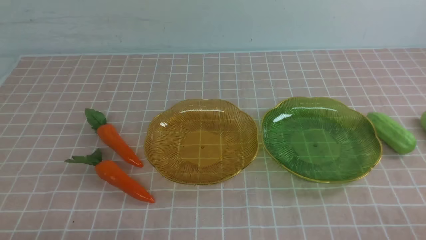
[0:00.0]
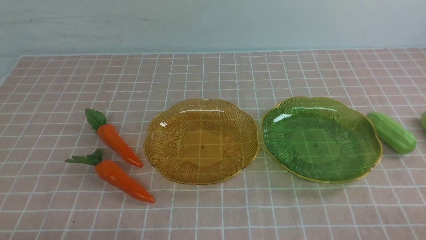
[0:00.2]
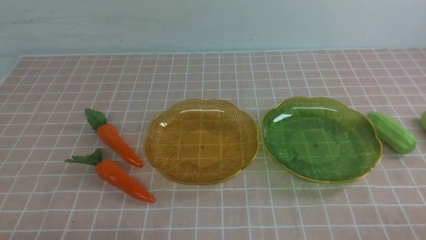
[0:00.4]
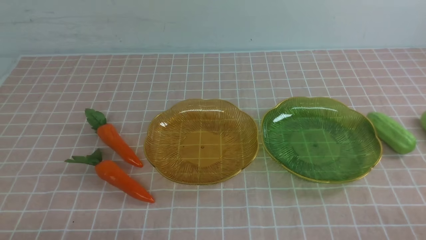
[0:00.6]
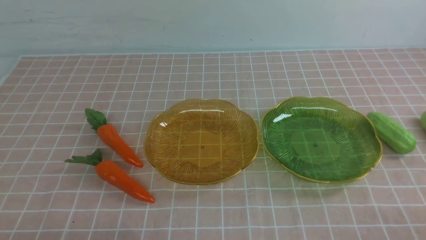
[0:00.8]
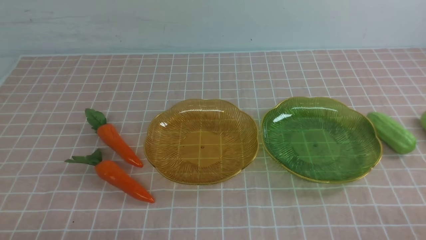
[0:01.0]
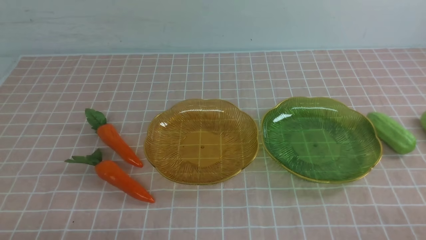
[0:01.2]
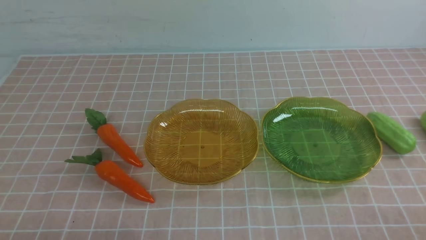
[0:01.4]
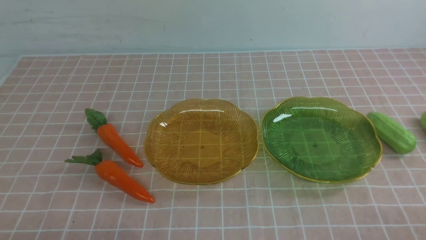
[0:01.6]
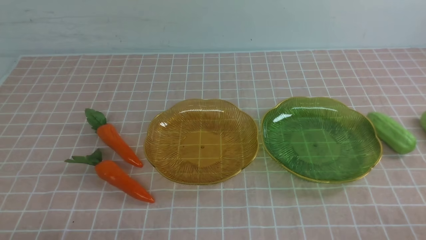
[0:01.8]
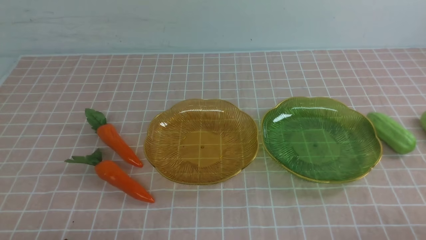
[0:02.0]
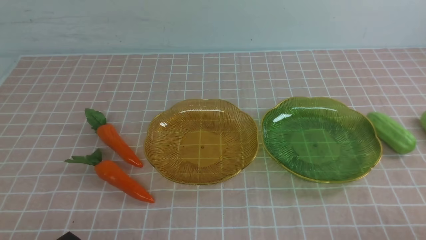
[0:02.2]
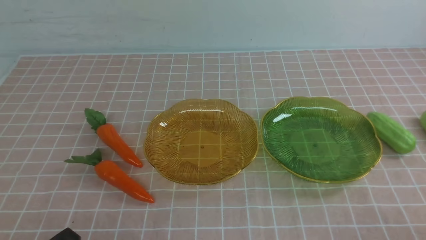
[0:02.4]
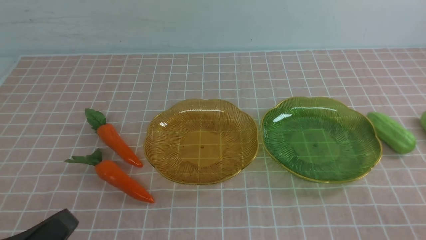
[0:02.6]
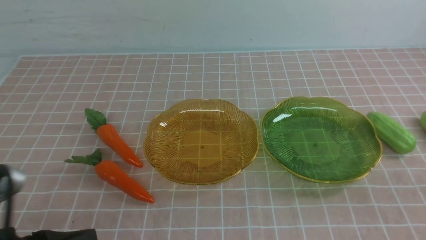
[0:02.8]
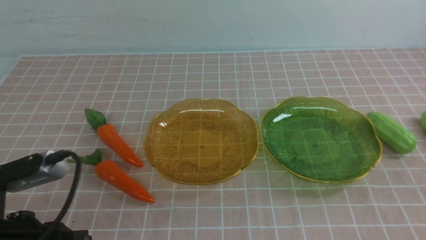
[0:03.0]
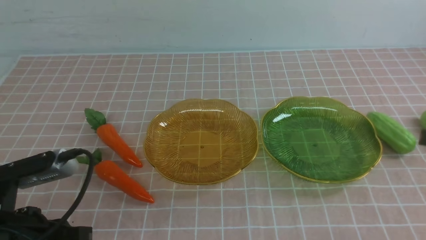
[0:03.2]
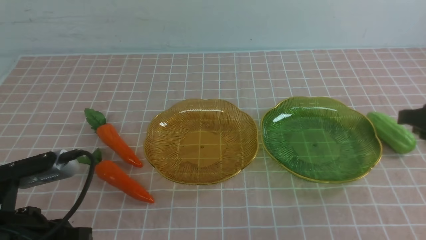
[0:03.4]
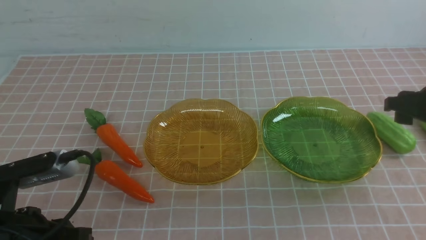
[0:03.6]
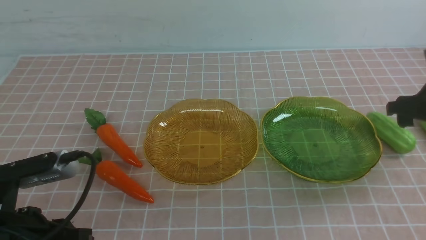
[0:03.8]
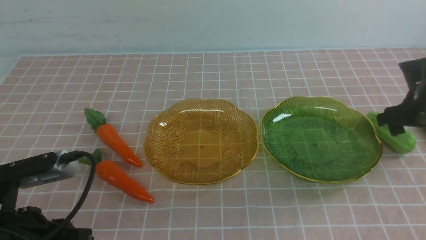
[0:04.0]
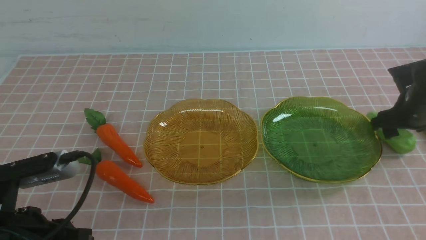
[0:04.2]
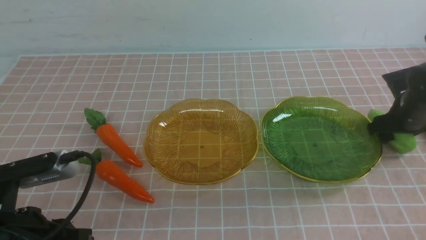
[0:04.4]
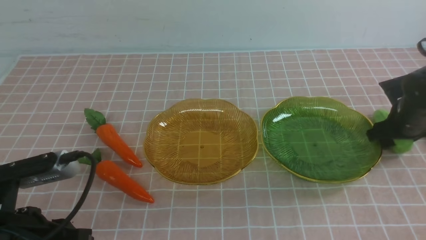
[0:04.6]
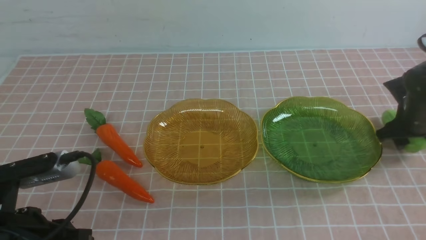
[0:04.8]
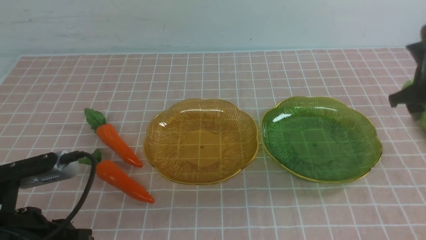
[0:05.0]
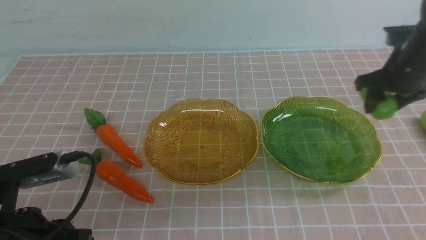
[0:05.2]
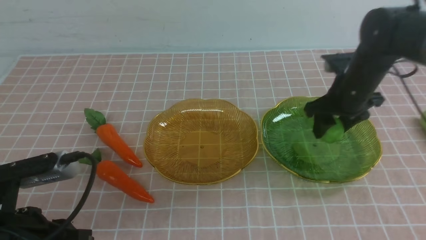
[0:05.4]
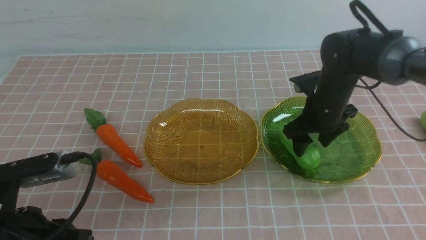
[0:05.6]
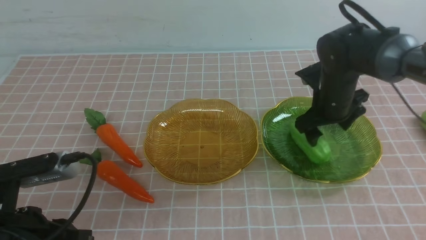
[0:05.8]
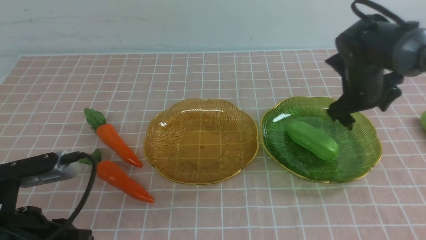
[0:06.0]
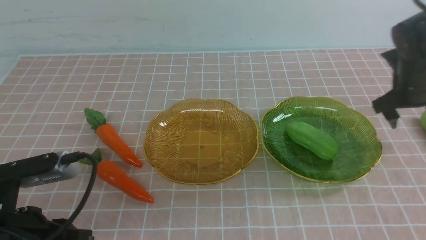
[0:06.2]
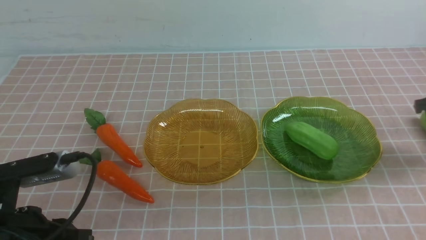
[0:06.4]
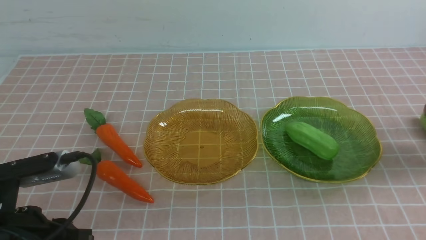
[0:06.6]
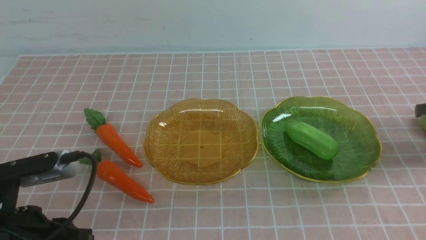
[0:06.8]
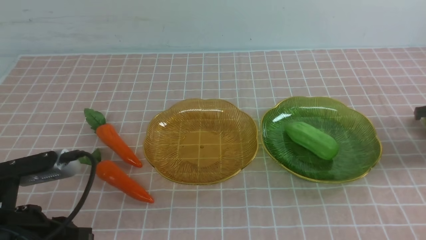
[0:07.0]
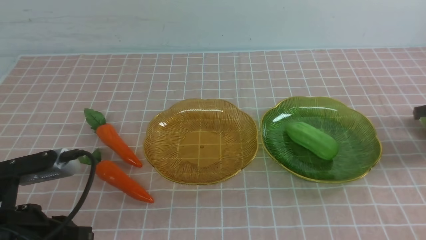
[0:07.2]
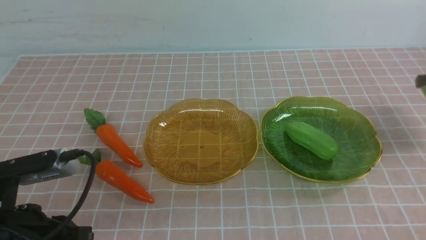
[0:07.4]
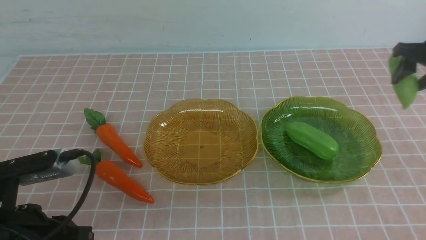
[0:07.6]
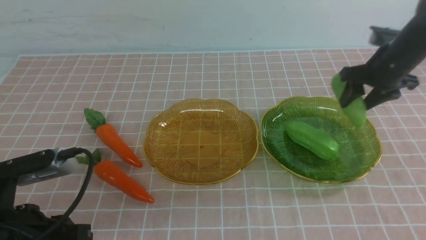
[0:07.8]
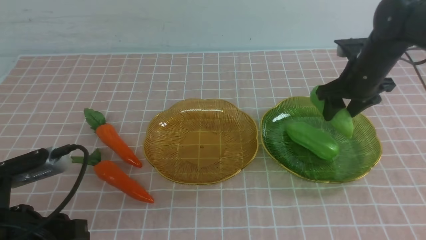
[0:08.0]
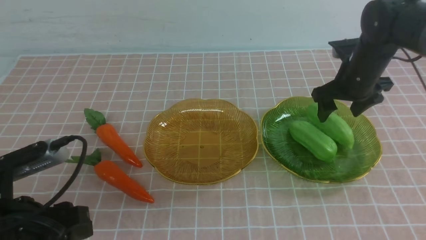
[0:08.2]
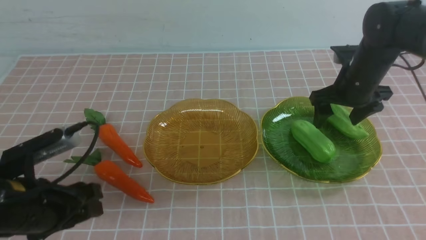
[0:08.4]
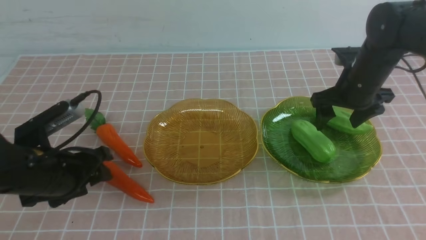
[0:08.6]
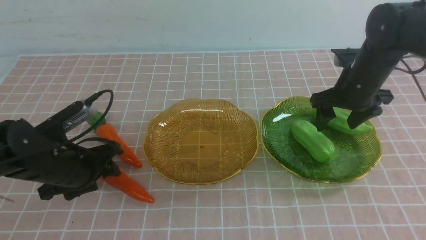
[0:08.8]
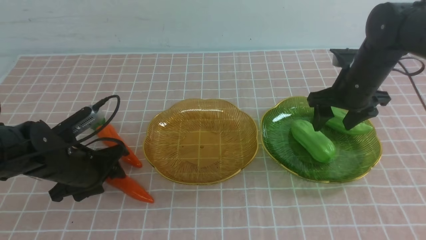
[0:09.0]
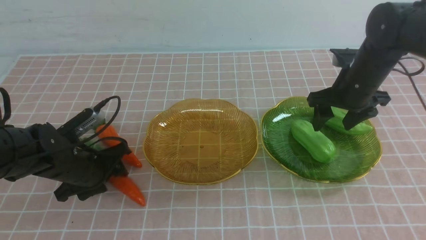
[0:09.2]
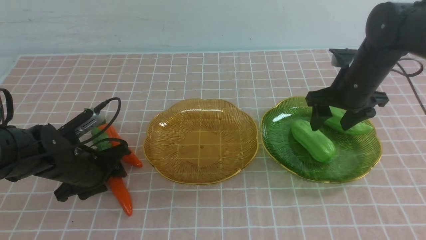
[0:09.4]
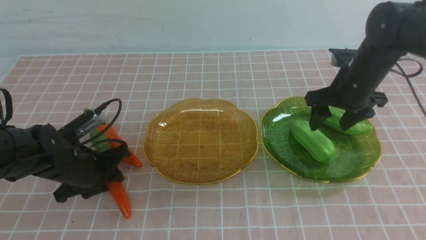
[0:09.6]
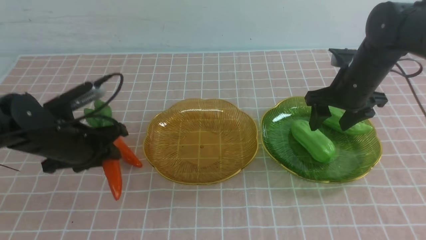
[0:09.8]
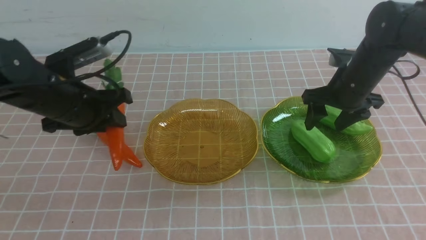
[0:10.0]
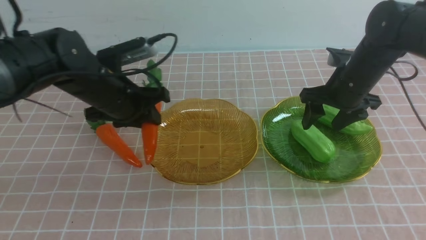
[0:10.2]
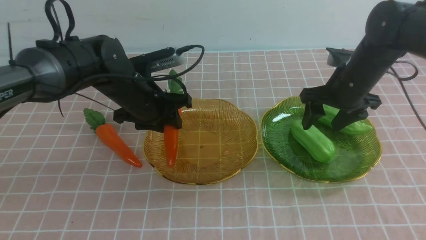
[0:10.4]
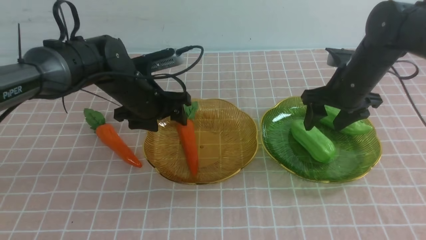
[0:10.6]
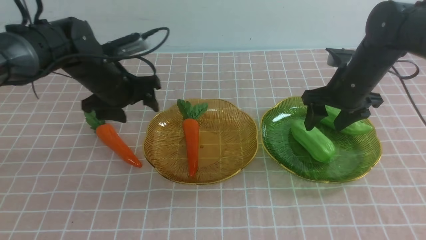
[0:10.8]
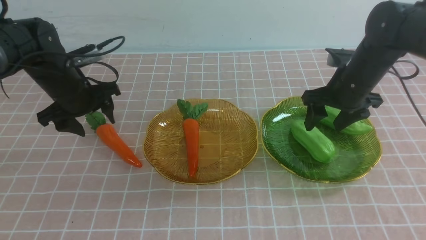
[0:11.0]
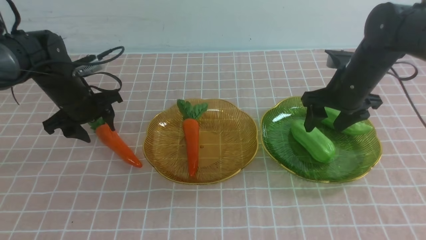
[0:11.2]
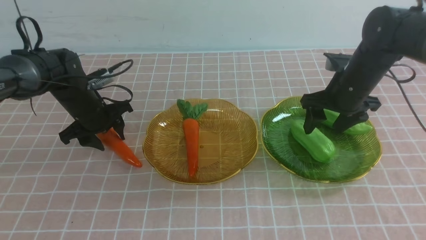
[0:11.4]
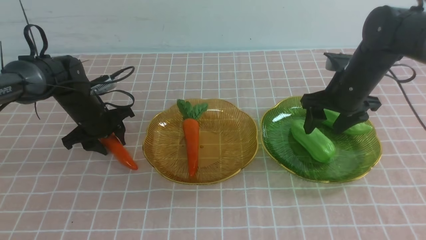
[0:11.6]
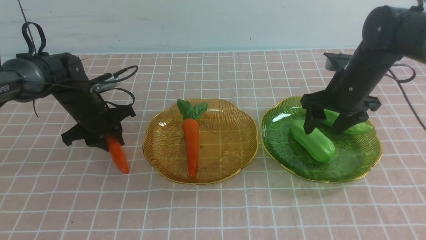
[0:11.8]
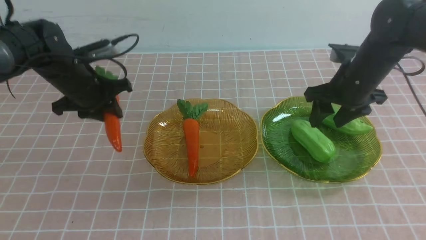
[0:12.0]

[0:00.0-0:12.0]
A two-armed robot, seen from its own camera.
Step, 0:00.0 to 0:08.0: use the right arm to grab a chayote and put it into the right plate.
0:01.6 to 0:03.0: The left gripper shifts about 10 cm upward and forward.
0:03.0 to 0:04.4: The right gripper goes about 20 cm forward and downward, and opens up.
0:04.4 to 0:06.0: The right gripper heads upward, covering roughly 5 cm, and moves roughly 15 cm to the left and comes back.
0:06.0 to 0:07.6: The right gripper moves approximately 10 cm to the right and comes back.
0:07.6 to 0:09.0: The right gripper shifts roughly 15 cm to the left. The left gripper shifts approximately 20 cm forward and downward, and opens.
0:09.0 to 0:10.4: The left gripper shifts some 15 cm to the right, forward and upward.
0:10.4 to 0:12.0: The left gripper is displaced to the left by approximately 5 cm.

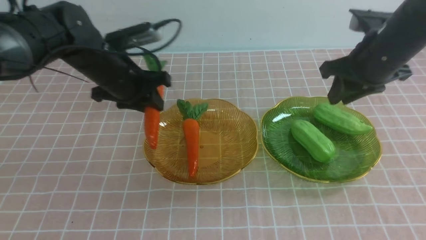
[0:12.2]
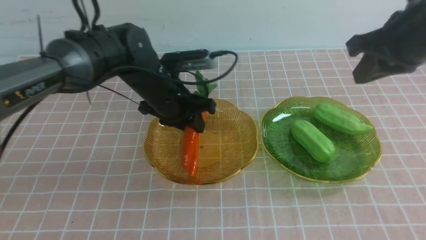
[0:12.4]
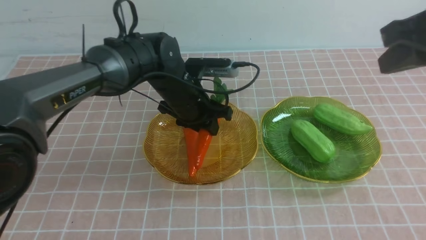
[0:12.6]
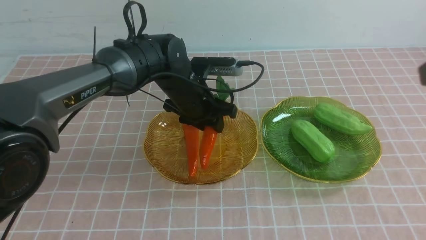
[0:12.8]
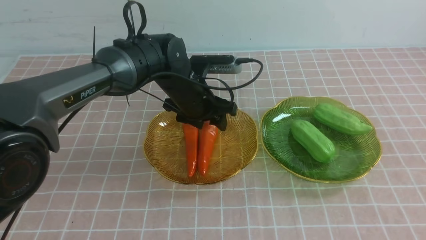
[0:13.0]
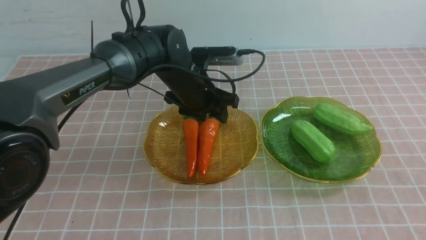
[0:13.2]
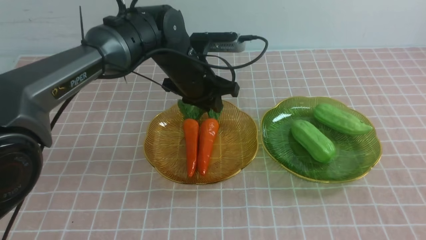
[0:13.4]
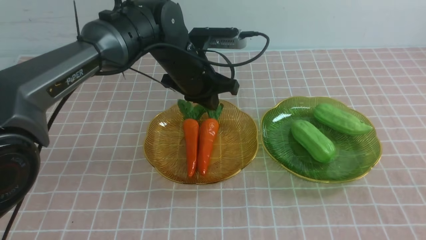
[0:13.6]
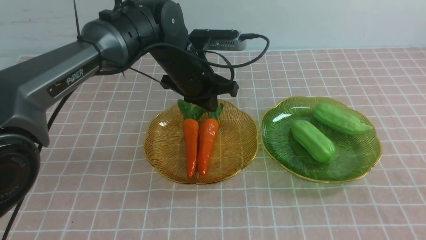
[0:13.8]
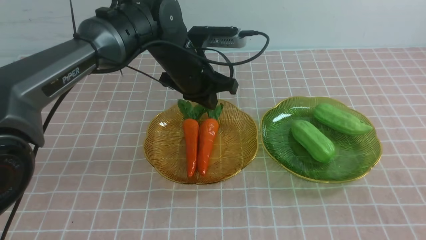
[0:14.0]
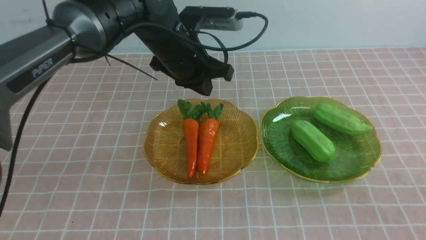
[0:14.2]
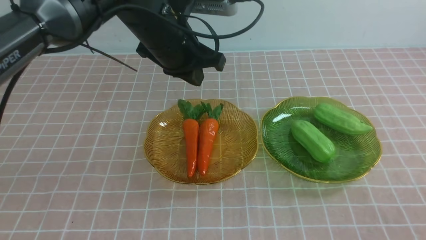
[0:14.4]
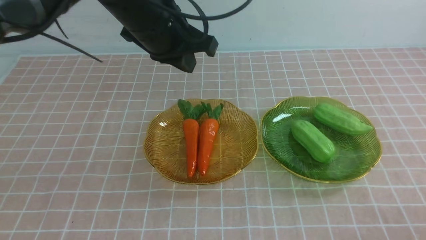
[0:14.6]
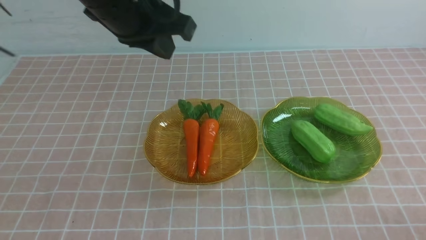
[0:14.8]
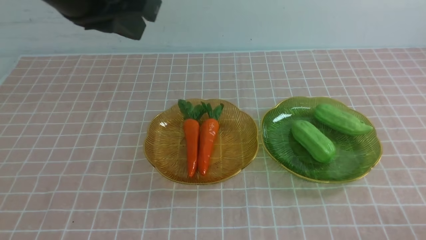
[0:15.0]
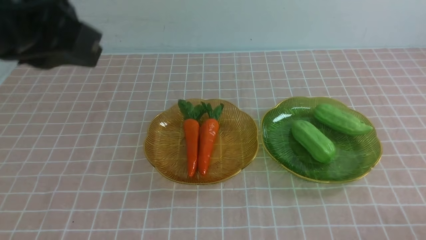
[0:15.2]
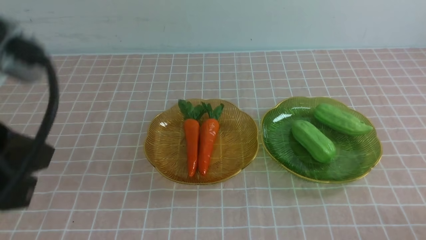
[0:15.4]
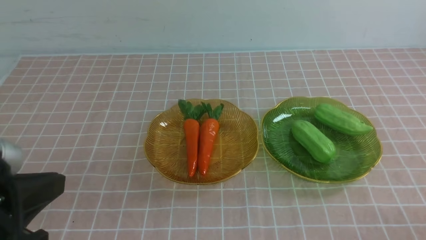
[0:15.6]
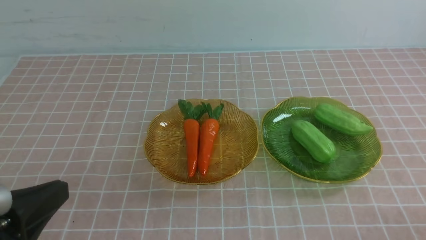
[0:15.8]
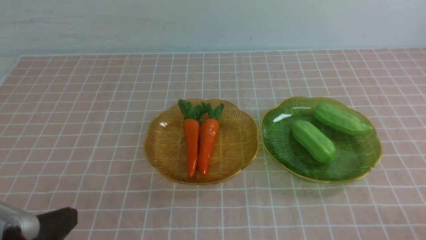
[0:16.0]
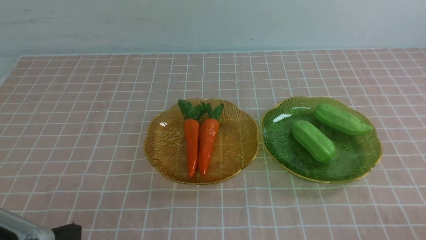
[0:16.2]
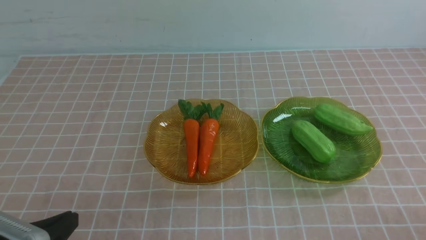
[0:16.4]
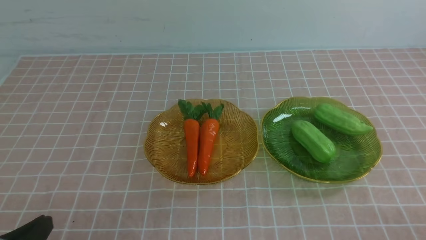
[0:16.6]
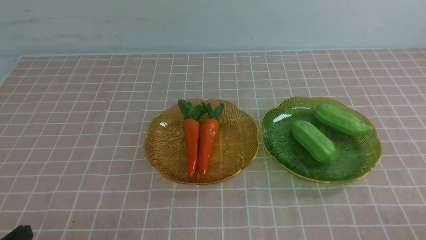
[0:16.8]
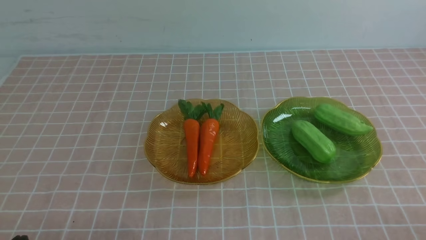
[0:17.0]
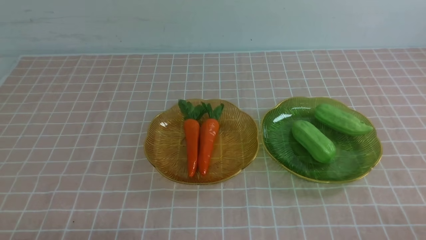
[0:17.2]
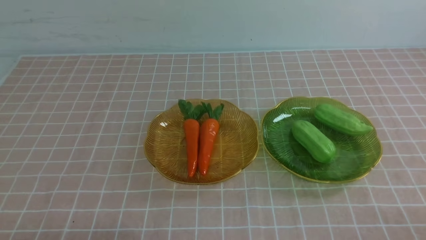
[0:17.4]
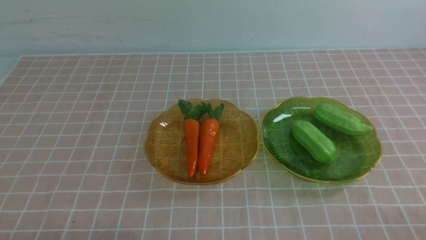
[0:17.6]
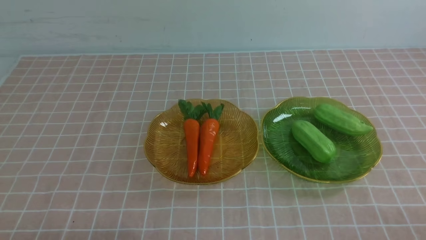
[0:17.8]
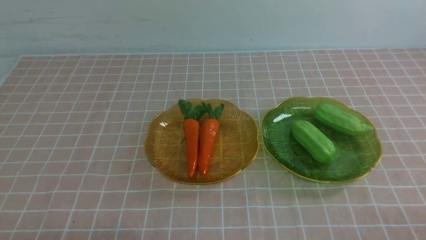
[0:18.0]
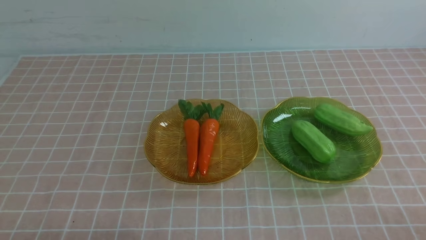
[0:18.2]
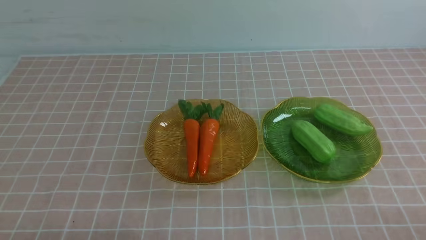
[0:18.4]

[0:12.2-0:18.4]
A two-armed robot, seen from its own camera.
0:12.2 to 0:13.8: The right gripper moves backward, roughly 30 cm; the left gripper goes about 10 cm to the right, and closes.
0:13.8 to 0:15.4: The right gripper heads downward, covering about 10 cm. The left gripper moves backward and to the left, approximately 35 cm.
0:15.4 to 0:16.8: The left gripper shifts about 15 cm downward.
0:16.8 to 0:18.4: Neither gripper changes place.
